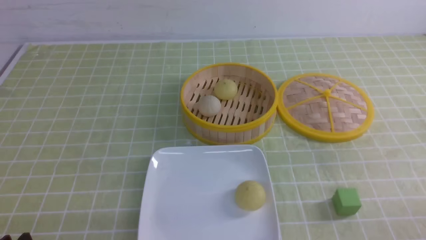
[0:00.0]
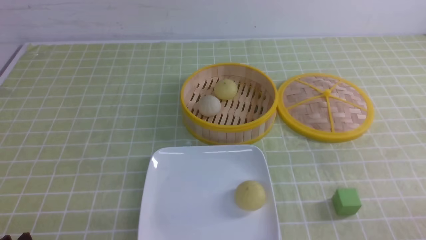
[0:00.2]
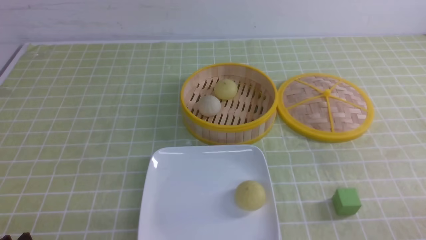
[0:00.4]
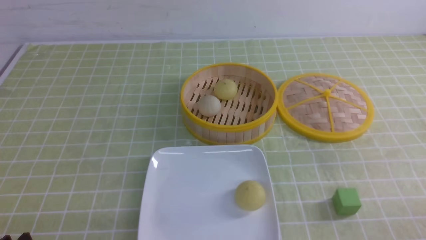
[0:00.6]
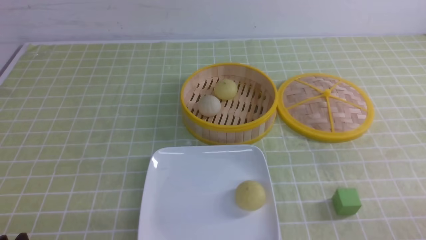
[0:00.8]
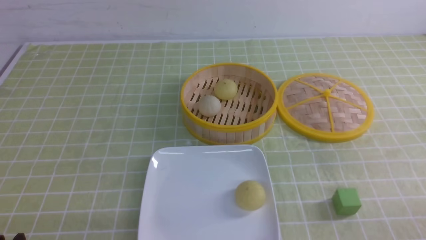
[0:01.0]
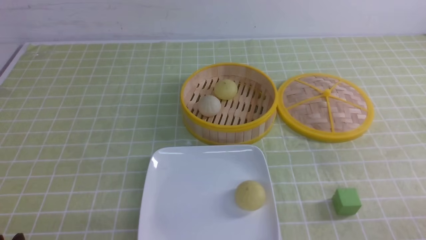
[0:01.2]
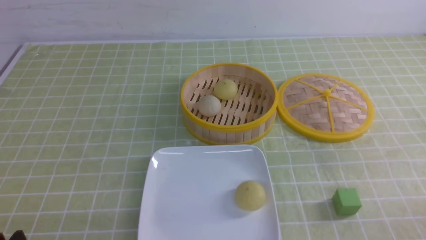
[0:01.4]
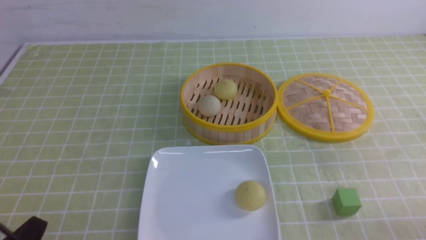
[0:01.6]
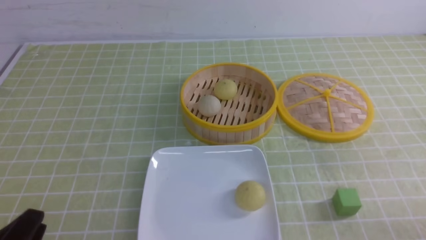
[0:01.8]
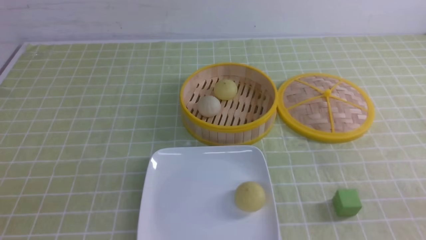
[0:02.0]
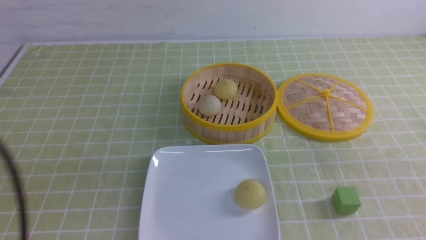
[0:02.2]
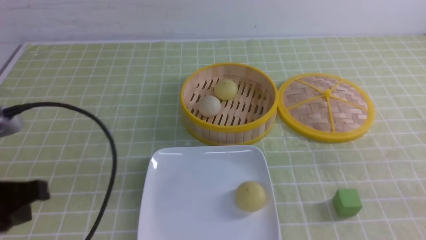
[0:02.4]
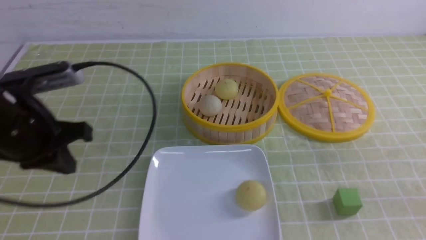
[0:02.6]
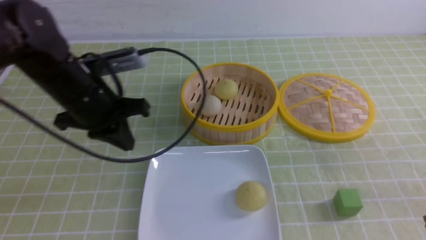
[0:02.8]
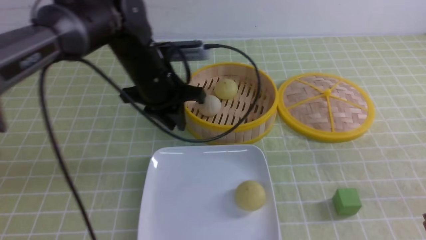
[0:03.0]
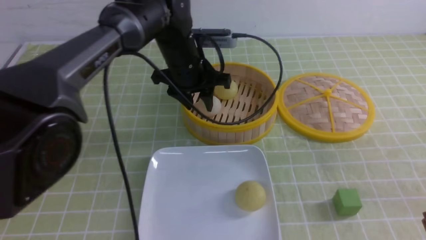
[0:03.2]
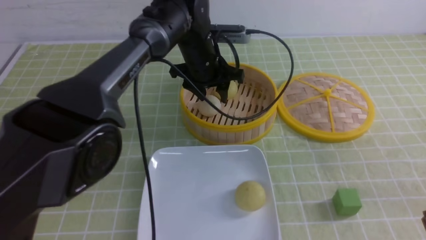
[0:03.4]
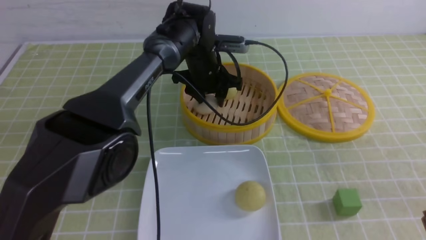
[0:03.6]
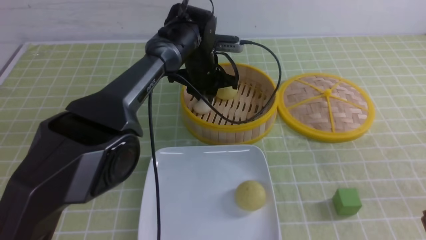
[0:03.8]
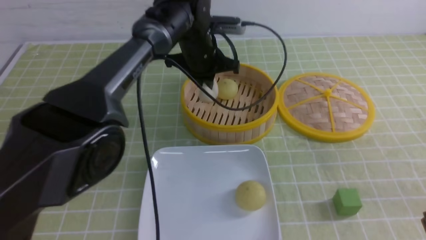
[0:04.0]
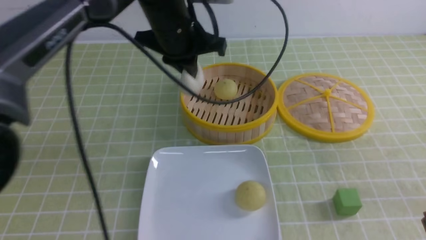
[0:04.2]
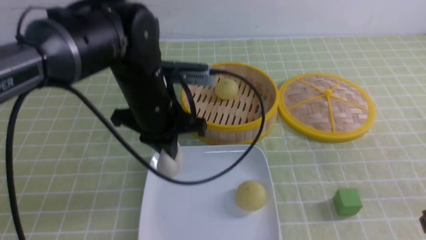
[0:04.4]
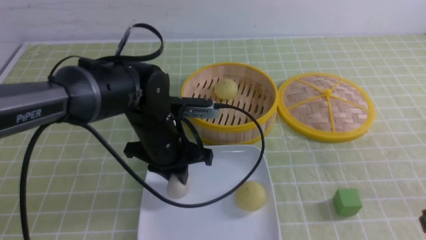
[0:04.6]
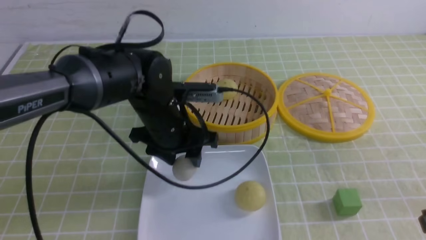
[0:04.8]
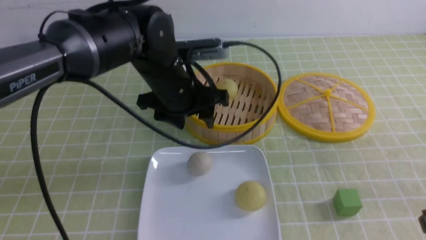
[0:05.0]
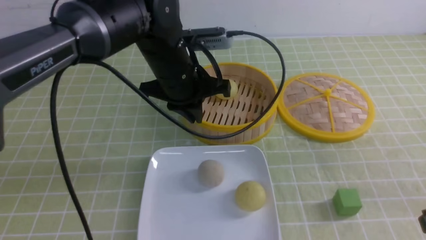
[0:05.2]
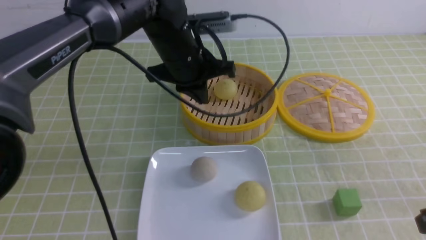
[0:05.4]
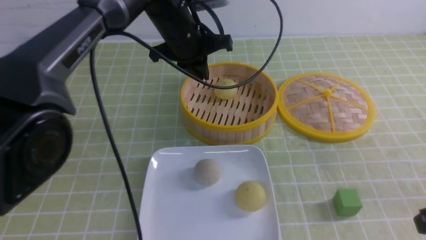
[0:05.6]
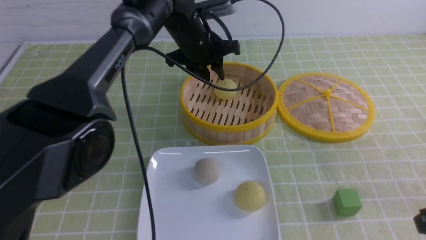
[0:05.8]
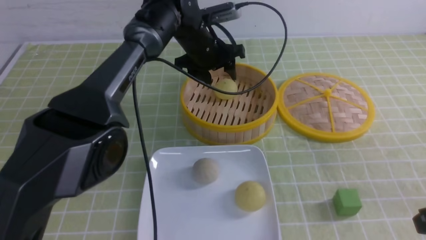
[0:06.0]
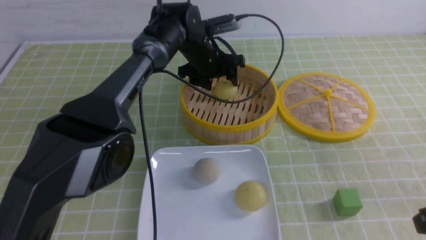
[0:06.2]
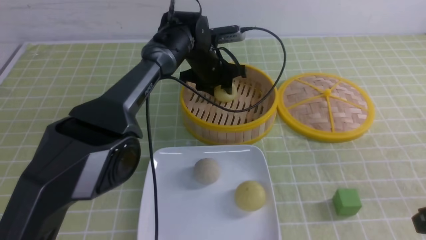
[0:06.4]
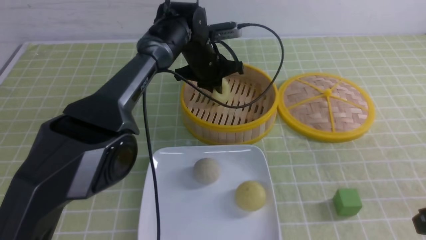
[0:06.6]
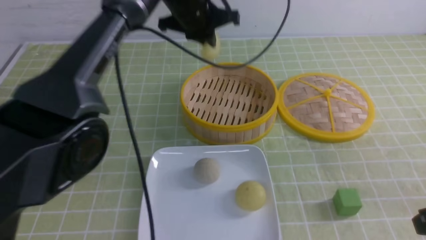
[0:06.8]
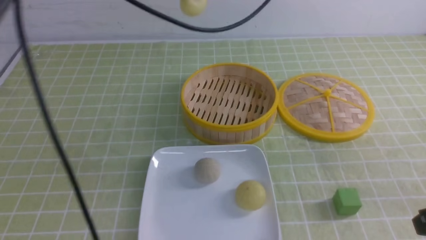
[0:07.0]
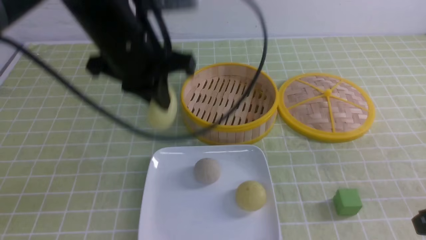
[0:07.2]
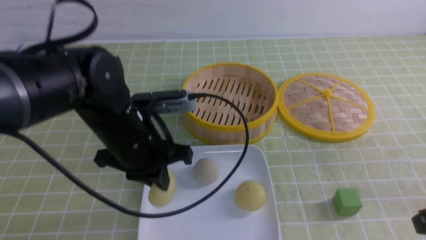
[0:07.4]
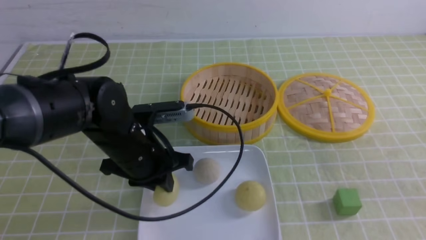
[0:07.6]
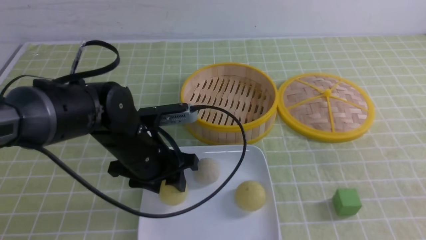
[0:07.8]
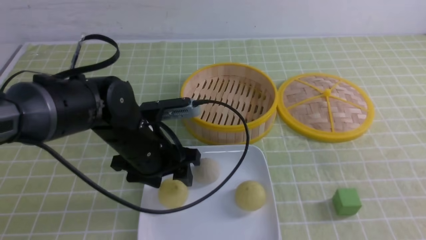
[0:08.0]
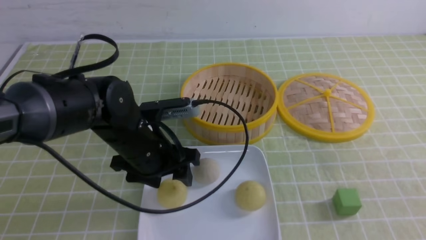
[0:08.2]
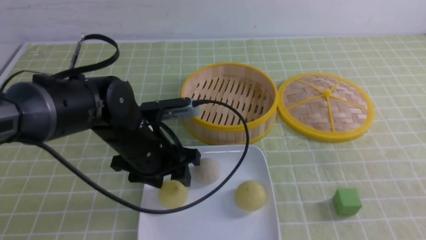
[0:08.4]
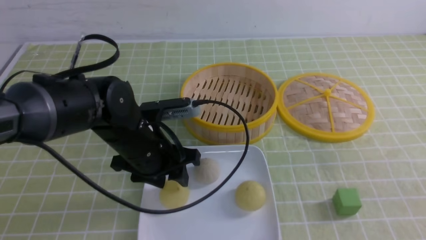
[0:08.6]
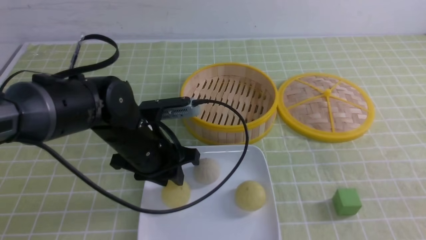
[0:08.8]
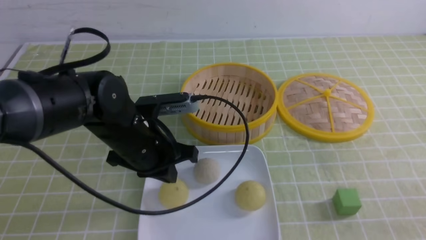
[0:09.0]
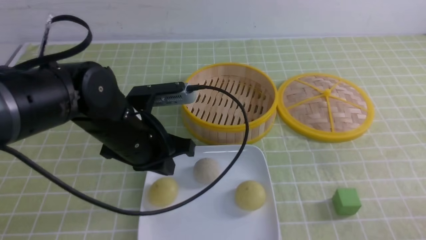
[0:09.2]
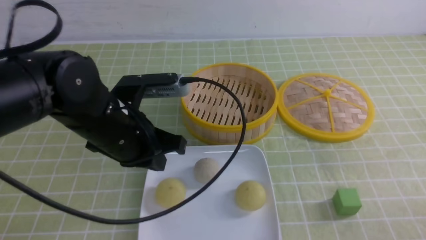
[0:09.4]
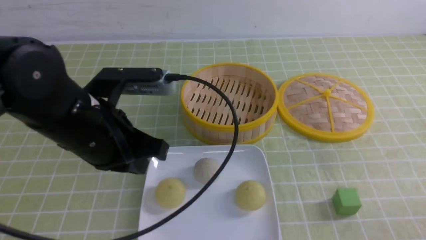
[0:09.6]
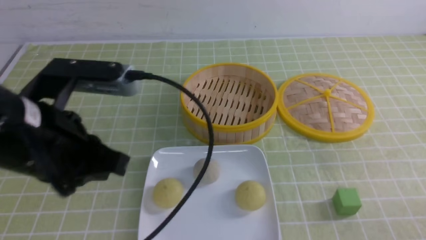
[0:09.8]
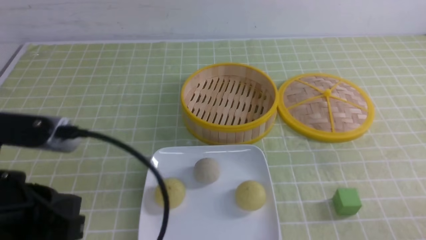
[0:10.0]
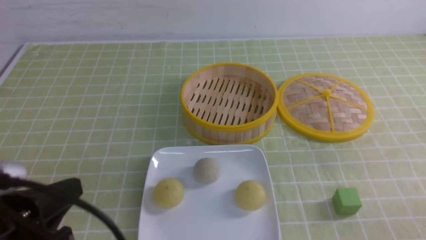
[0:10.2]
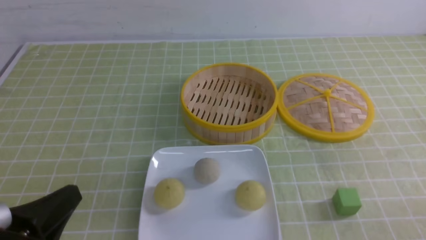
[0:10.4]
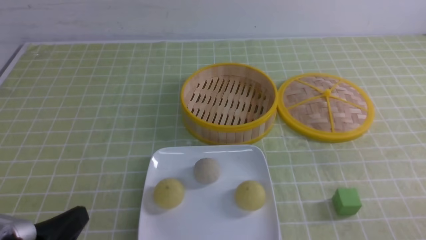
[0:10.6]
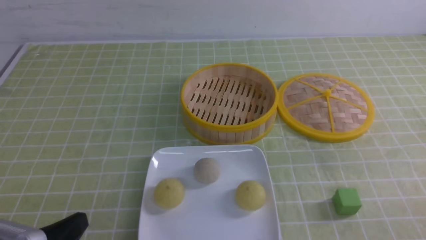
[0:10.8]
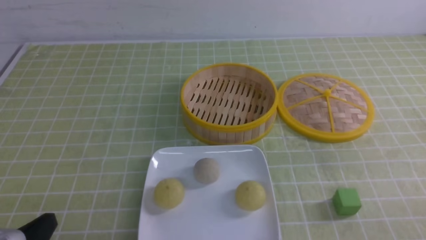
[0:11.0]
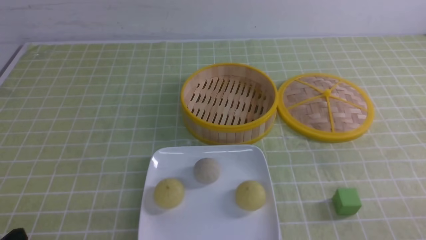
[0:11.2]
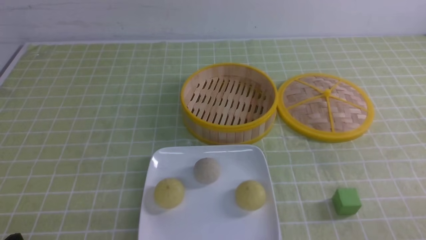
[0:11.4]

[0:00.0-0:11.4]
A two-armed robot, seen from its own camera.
Step, 0:00.0 to 0:03.8: use the left arm to grab the steamed stuffed bun that is closest to it.
Step, 0:04.0 to 0:04.8: use the left arm to put the steamed stuffed bun into the plate.
Step, 0:05.0 to 0:06.4: use the left arm to grab the steamed stuffed bun that is closest to it.
Step, 0:06.6 to 0:08.0: use the left arm to put the steamed stuffed bun into the plate.
0:01.4 to 0:02.8: The right gripper is displaced forward and upward by approximately 15 cm, and closes its fingers; the left gripper moves forward and upward, some 30 cm.
0:02.8 to 0:04.2: The right gripper opens up. The left gripper travels to the right and forward by roughly 15 cm, and opens and closes again.
0:04.2 to 0:05.6: The left gripper opens and closes again.
0:05.6 to 0:07.2: The left gripper goes up and down, about 20 cm each way, reversing 2 times, and opens, then closes again.
0:07.2 to 0:08.6: The left gripper goes approximately 15 cm downward, and opens its fingers, while the right gripper shifts roughly 10 cm backward, and closes up.
0:08.6 to 0:10.0: The left gripper heads backward, upward and to the left, covering some 20 cm, and closes up; the right gripper heads downward, covering about 10 cm.
0:10.0 to 0:11.4: The left gripper shifts some 15 cm downward, backward and to the left.

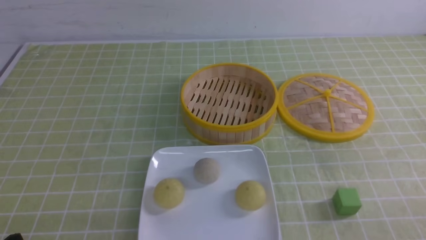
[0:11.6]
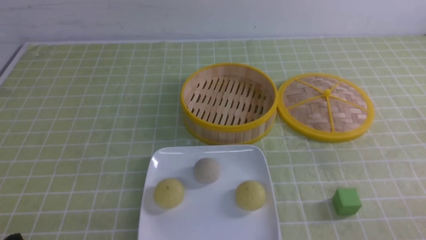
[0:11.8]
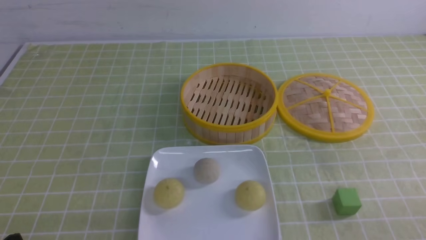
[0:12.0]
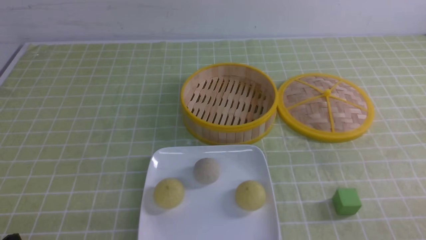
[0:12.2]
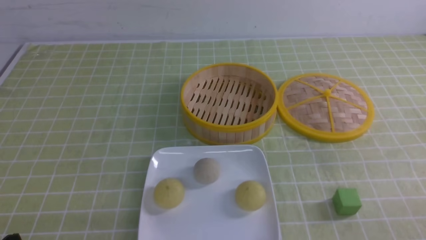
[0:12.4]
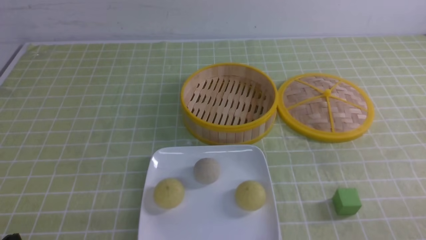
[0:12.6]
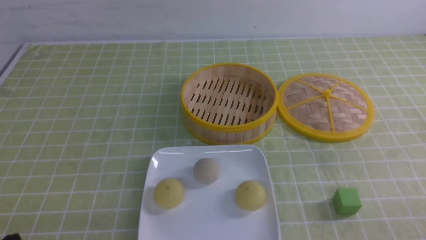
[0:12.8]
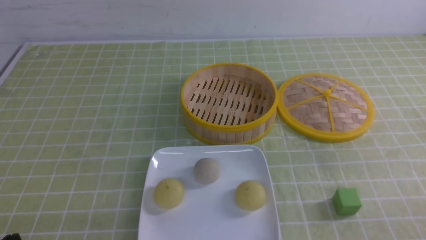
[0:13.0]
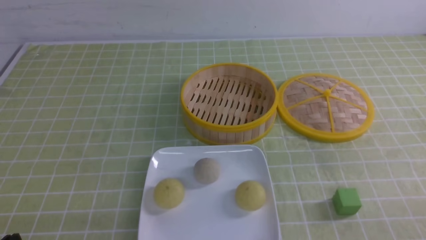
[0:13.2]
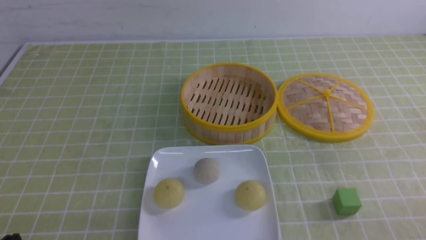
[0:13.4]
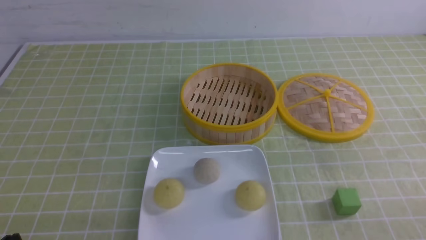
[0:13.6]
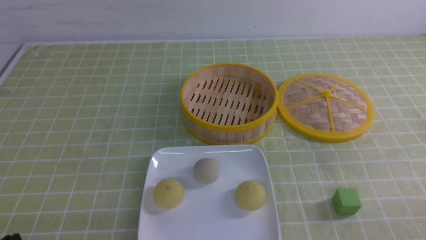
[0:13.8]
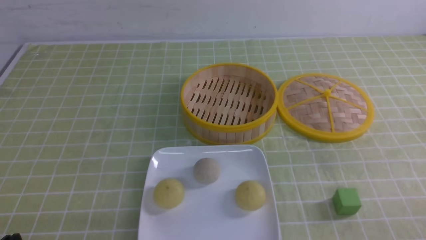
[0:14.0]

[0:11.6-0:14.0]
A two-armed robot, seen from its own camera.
0:11.6 to 0:14.0: Neither gripper changes place.
